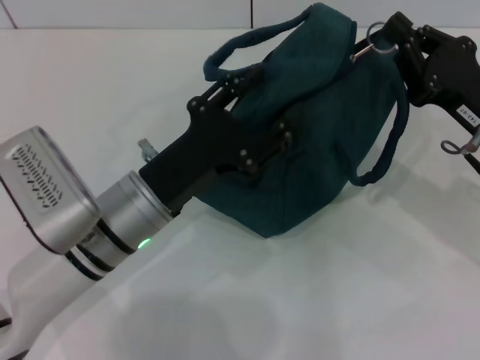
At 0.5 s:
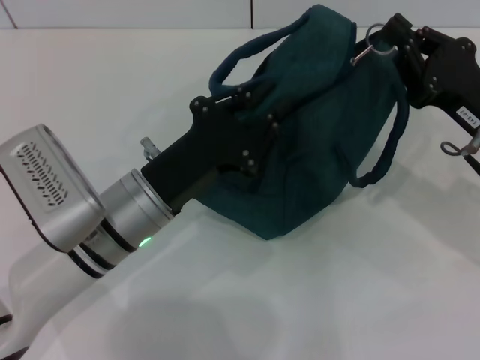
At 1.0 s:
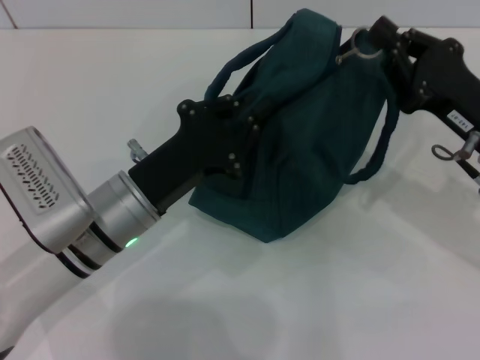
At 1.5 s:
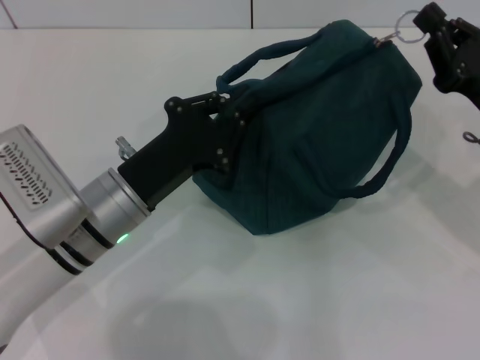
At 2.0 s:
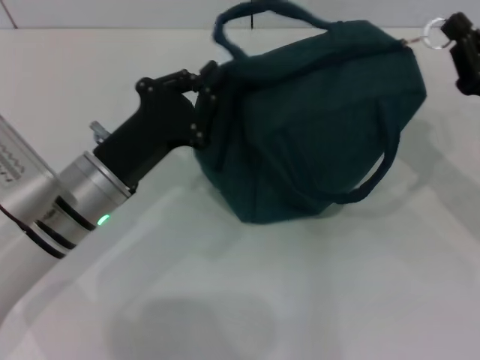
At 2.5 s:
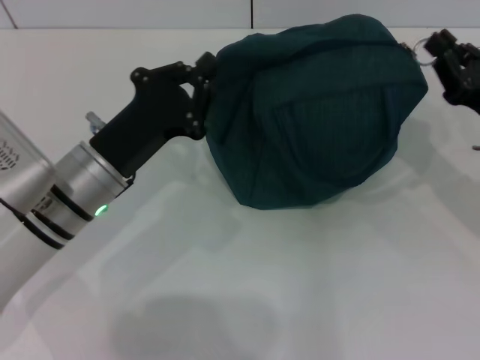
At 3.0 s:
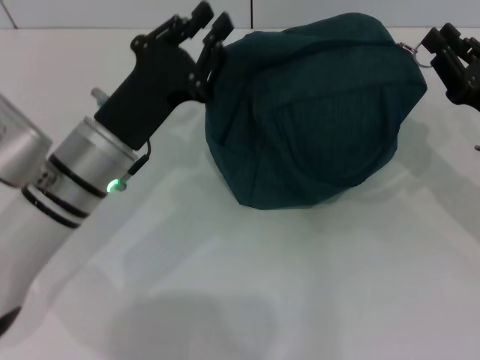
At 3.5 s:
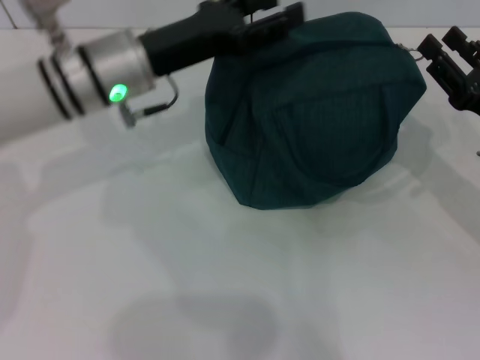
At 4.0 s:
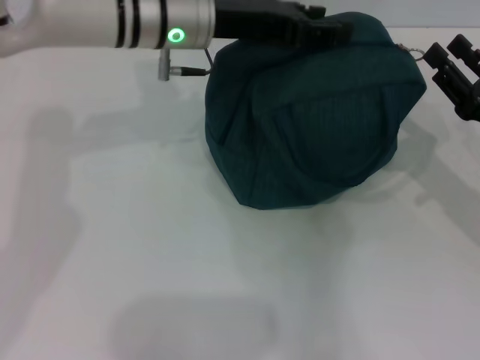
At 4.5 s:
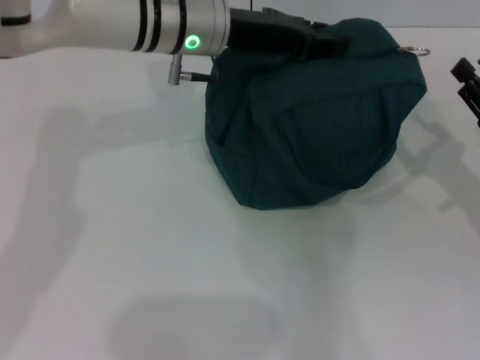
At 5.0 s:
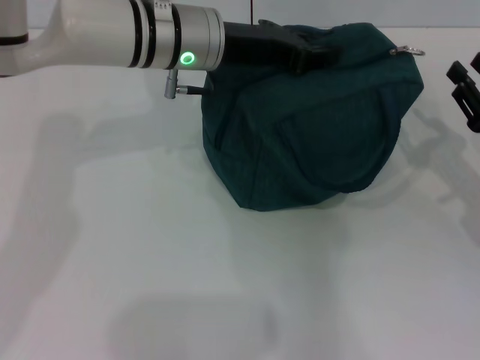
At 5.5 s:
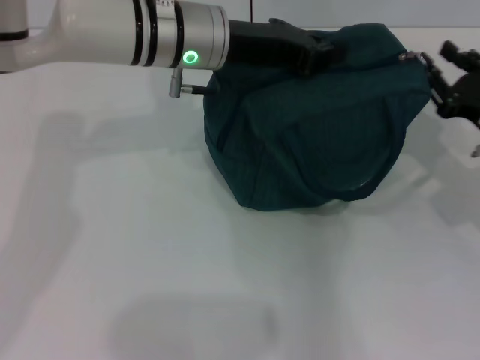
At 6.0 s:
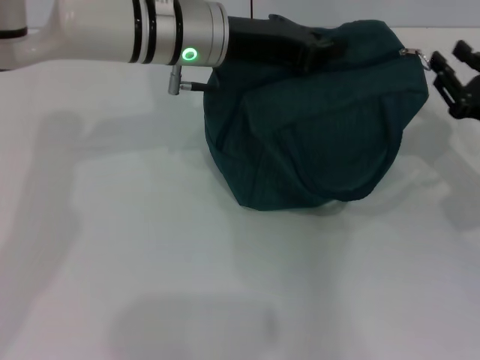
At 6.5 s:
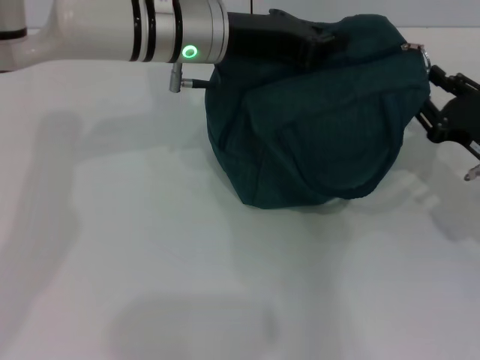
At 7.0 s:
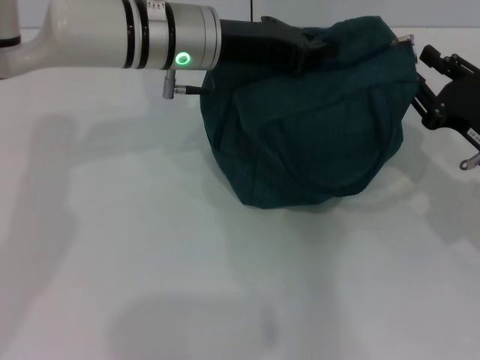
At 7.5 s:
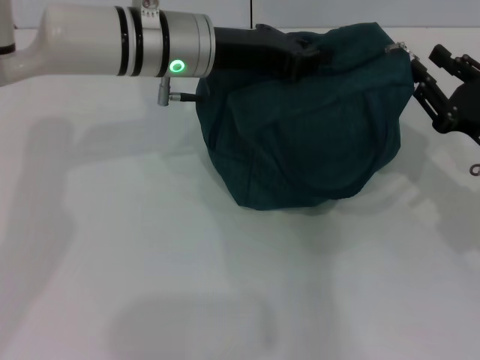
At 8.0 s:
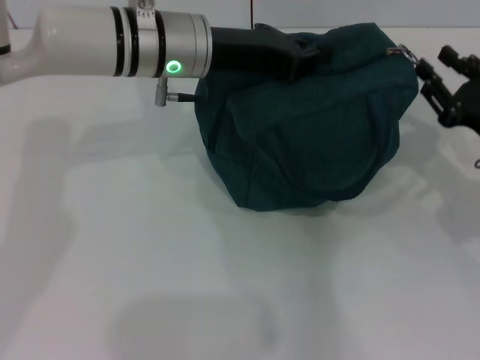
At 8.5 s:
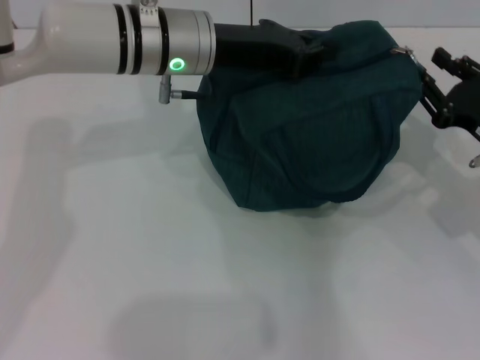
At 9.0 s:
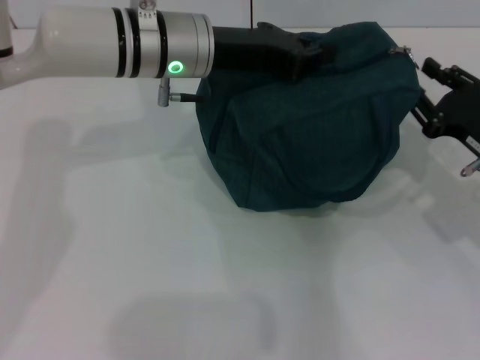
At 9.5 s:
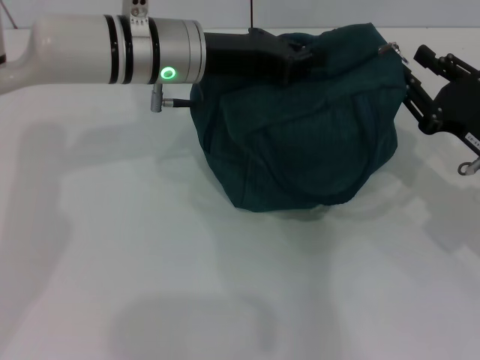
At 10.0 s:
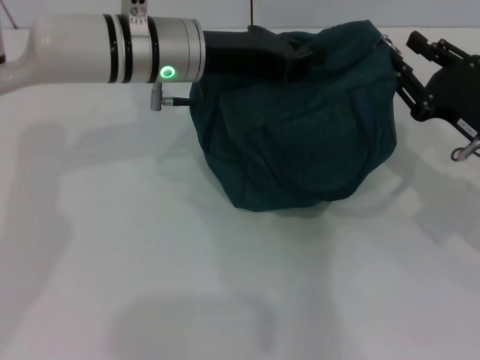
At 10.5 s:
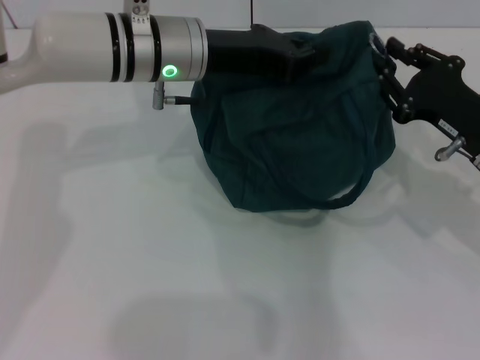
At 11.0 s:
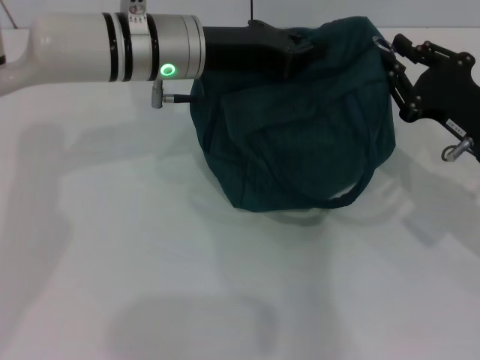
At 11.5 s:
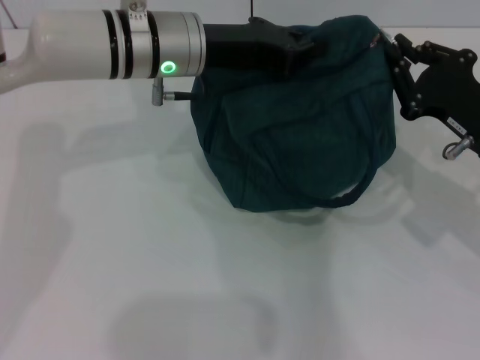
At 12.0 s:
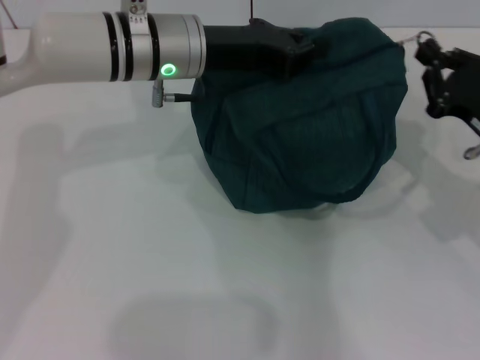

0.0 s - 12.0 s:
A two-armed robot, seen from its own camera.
0.0 s - 2.0 s: The left gripper closes up.
2.0 s - 4.0 s: The left gripper travels forward, upward and to the right by roughly 20 cm, and opens its fingers. Meanwhile the right gripper opens its fingers.
4.0 s - 6.0 s: The left gripper closes up.
6.0 s - 10.0 s: The grippers move only a little.
10.0 s - 12.0 s: The right gripper closes.

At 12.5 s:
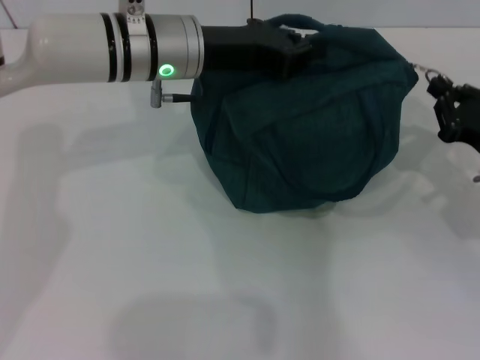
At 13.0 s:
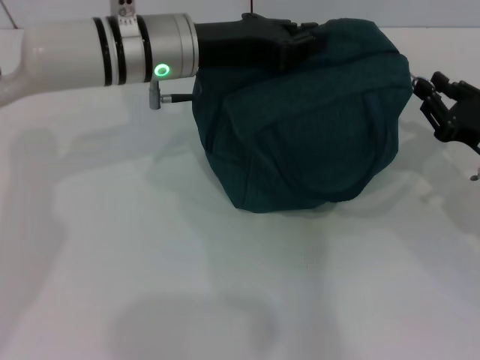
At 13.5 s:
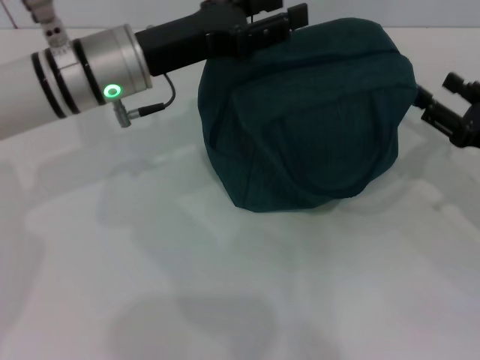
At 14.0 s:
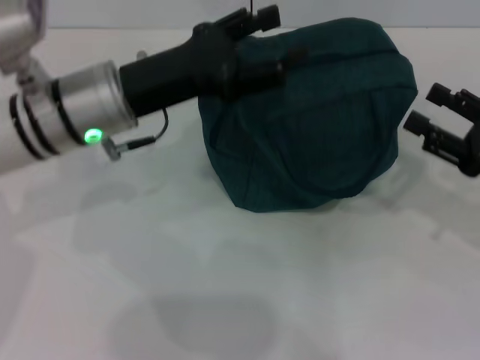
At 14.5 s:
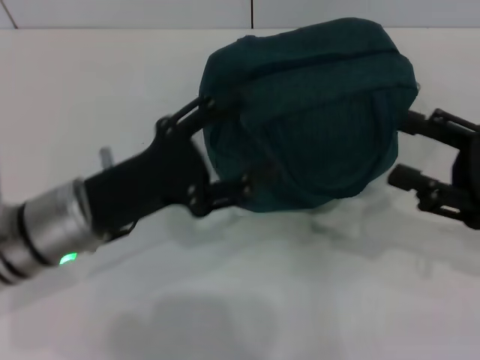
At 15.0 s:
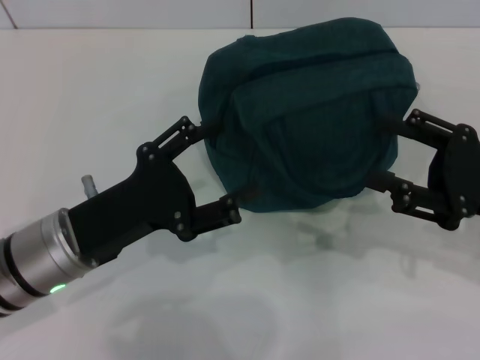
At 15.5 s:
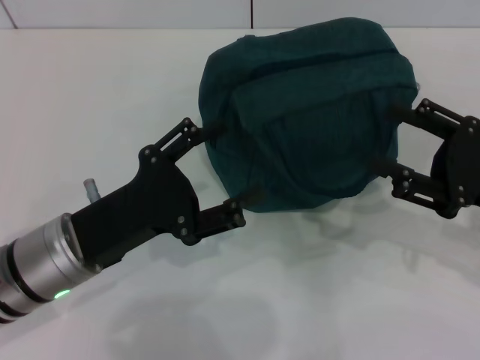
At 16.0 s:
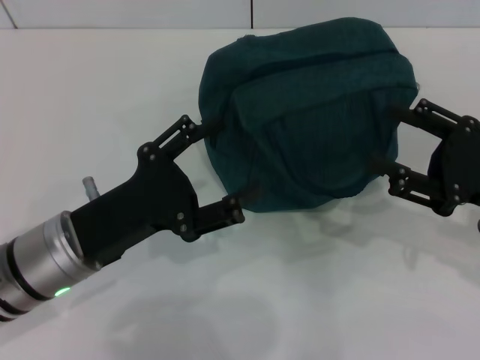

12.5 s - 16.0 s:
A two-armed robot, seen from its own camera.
12.5 s - 14.5 s: The right gripper goes roughly 5 cm upward, and opens its fingers, while the left gripper shifts some 20 cm backward, to the left and downward, and opens up.
14.5 s - 16.0 s: The grippers stay close to where they were, moving slightly.
